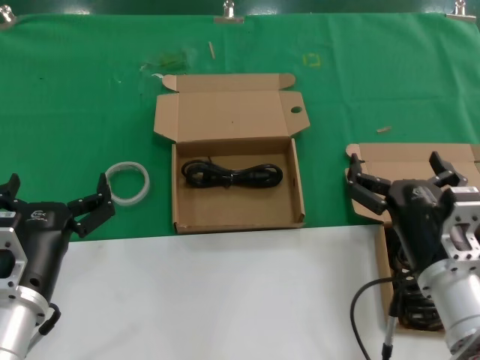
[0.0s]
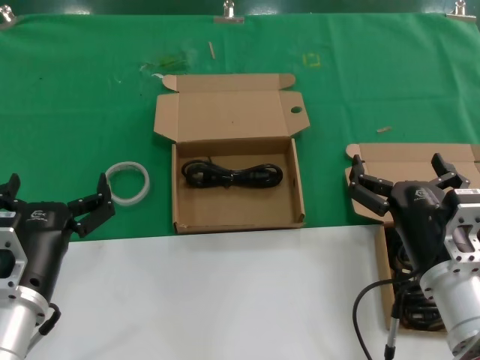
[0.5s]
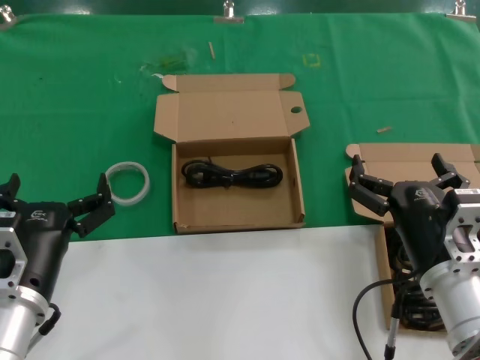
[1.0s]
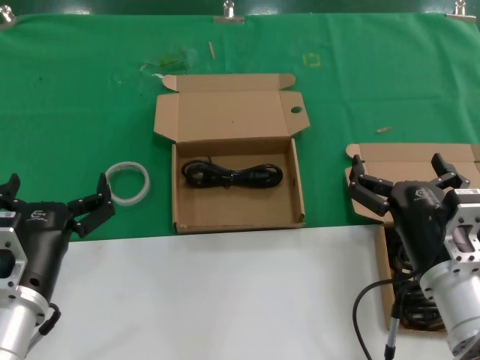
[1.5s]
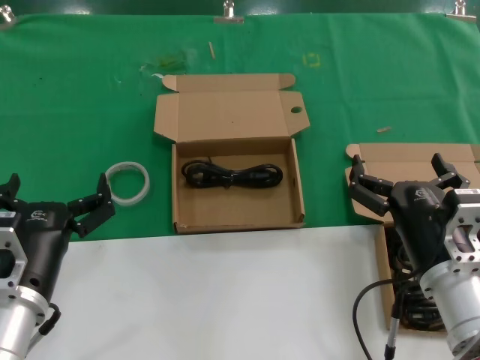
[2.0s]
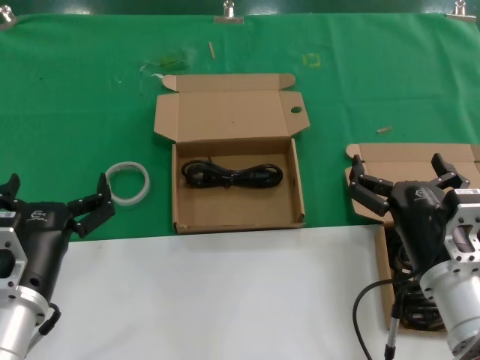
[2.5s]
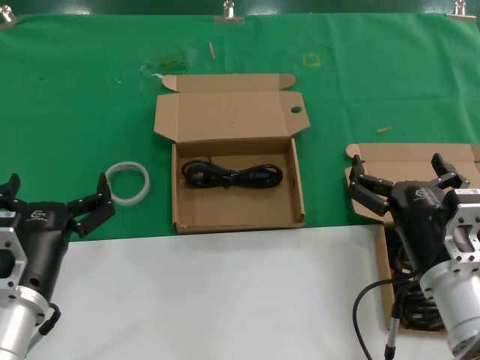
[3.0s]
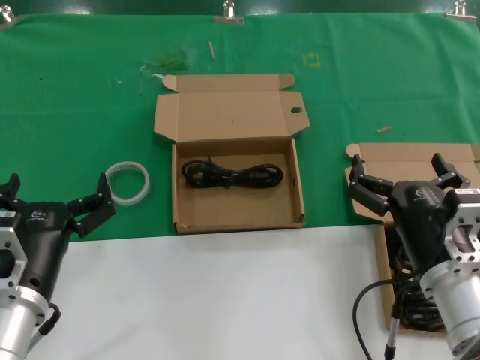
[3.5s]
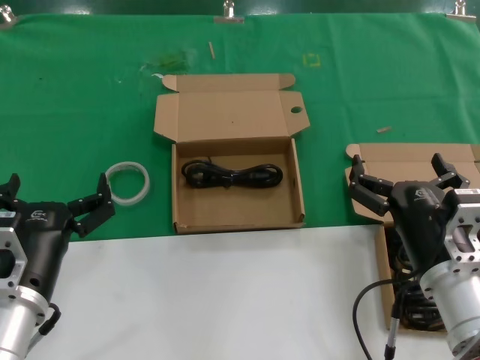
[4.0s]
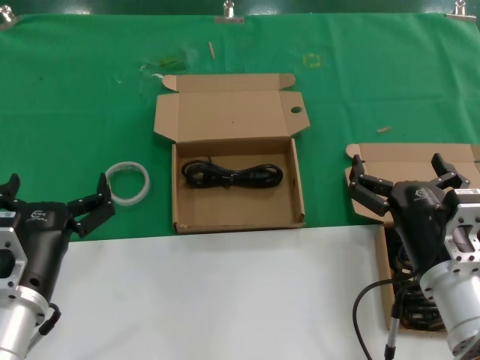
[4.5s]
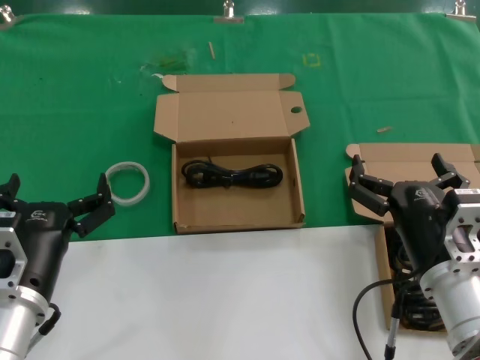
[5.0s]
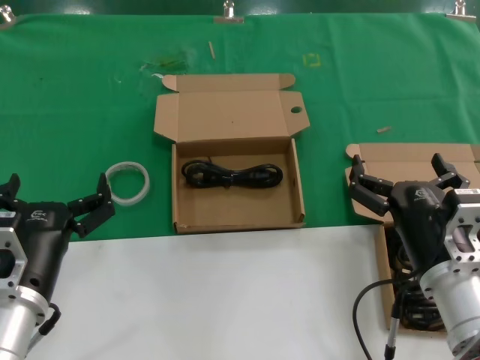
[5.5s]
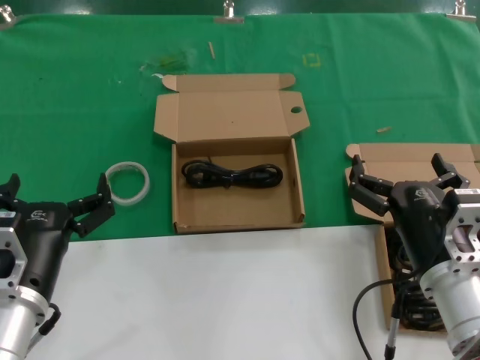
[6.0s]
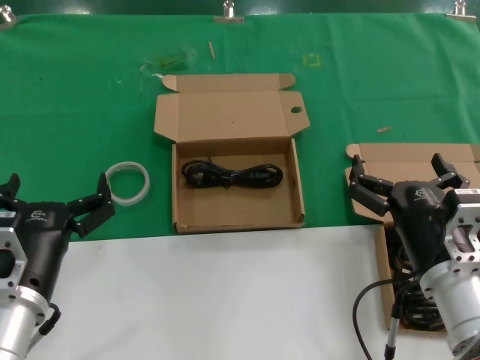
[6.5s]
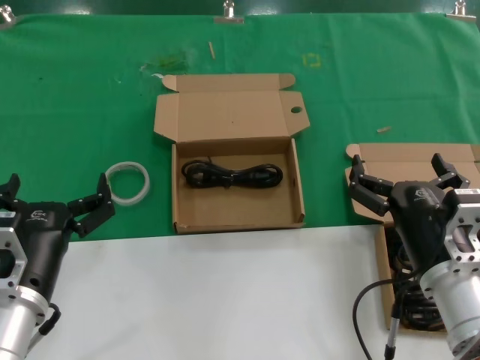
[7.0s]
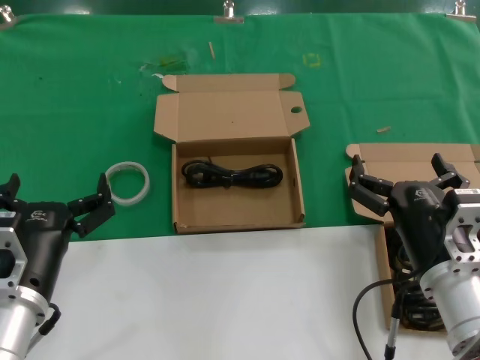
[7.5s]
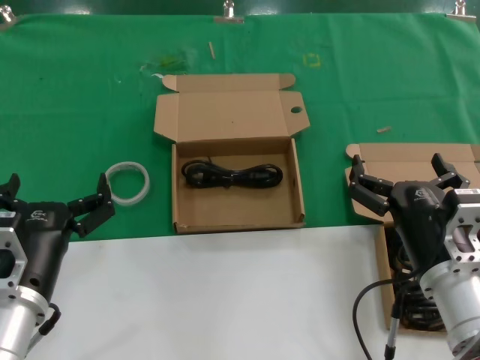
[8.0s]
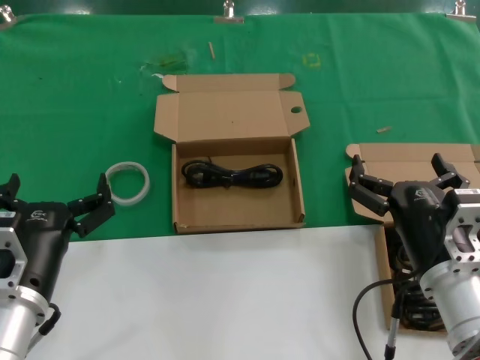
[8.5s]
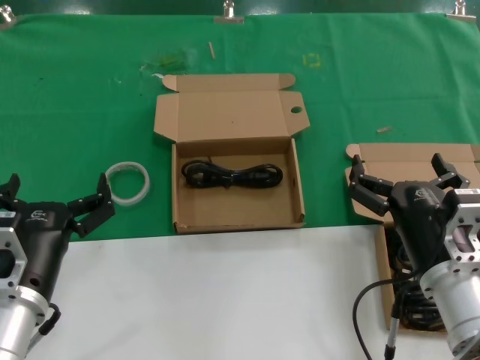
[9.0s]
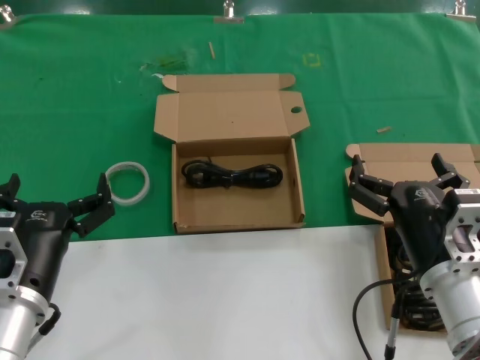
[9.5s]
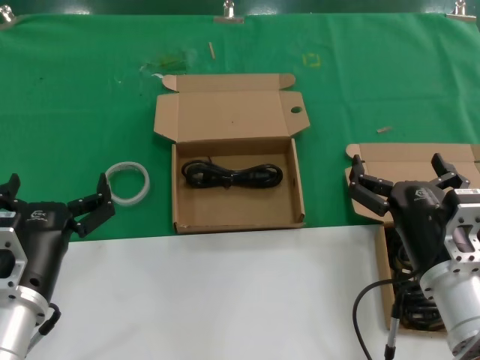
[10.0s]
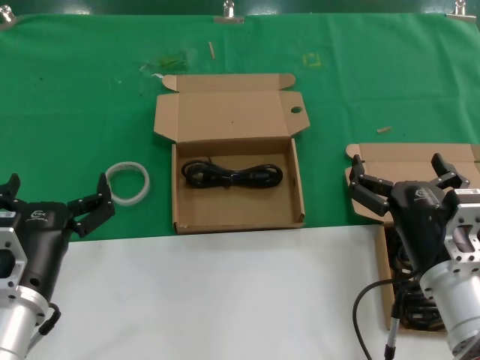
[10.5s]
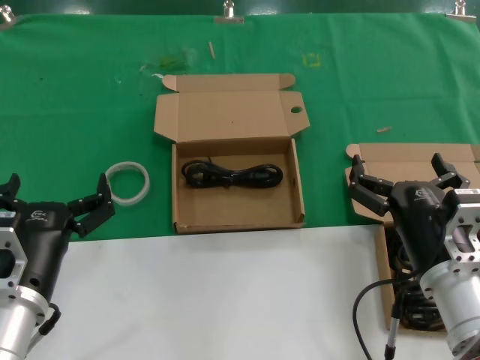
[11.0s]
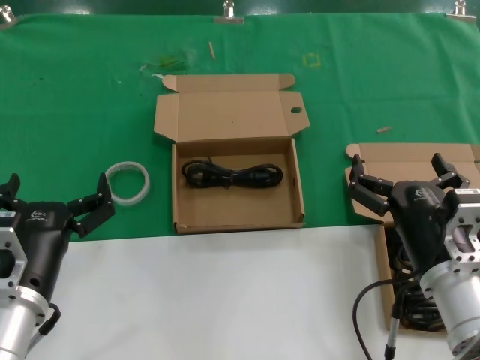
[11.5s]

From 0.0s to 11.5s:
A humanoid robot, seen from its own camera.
Task of the whole recording: take the parts from the box containing them and put them into an empty box.
From 0.0s to 11.5s: The two hands keep their place.

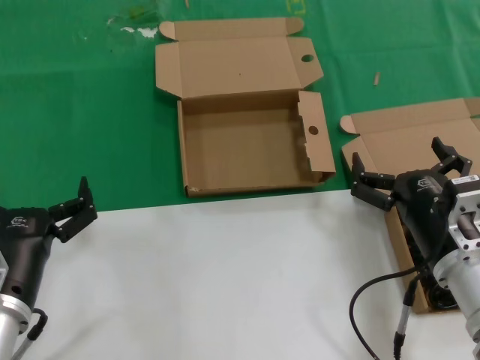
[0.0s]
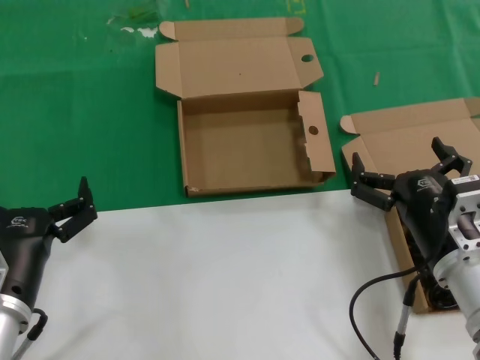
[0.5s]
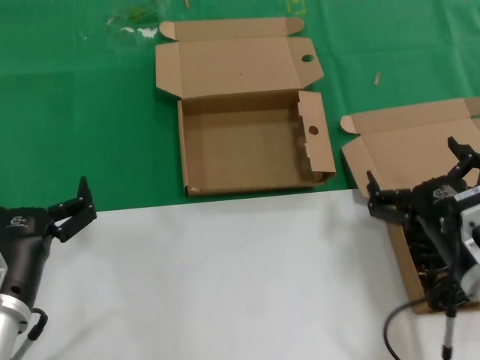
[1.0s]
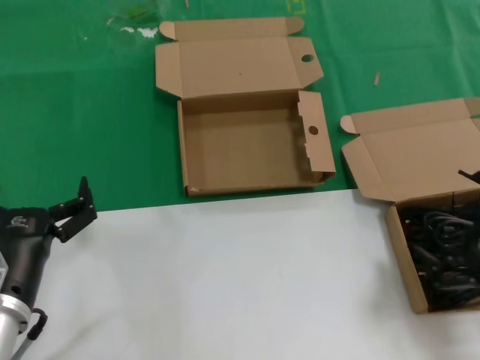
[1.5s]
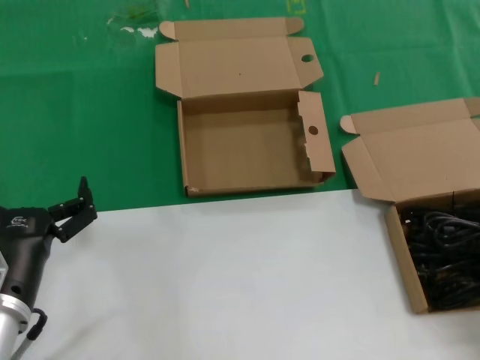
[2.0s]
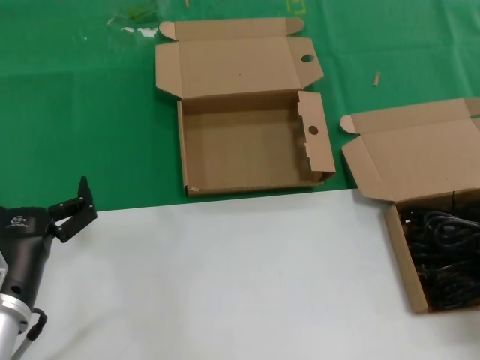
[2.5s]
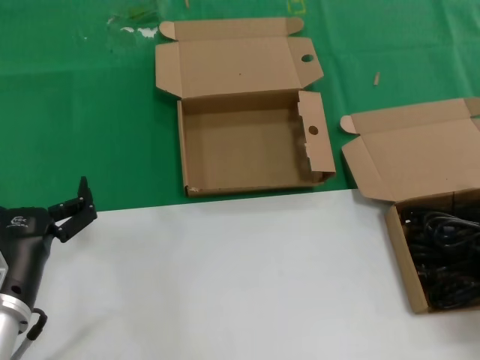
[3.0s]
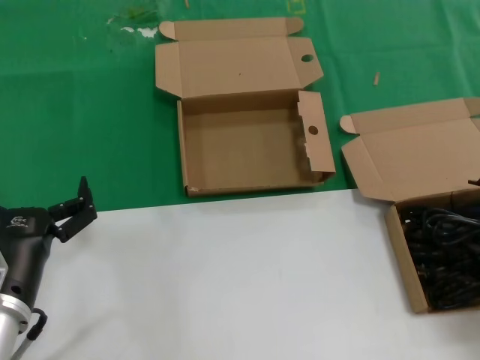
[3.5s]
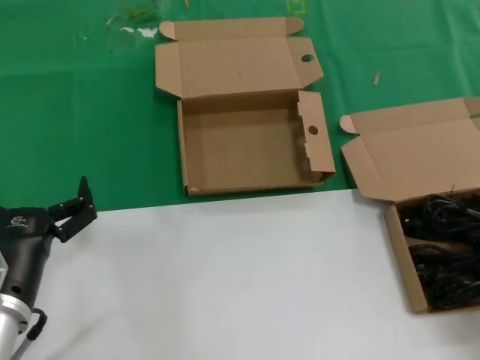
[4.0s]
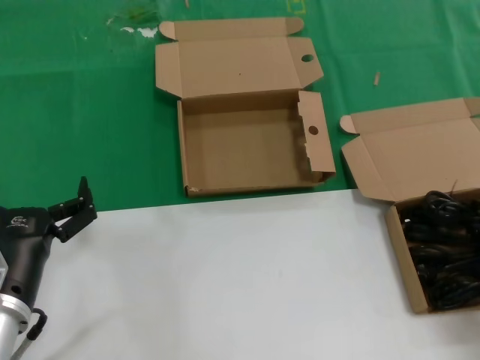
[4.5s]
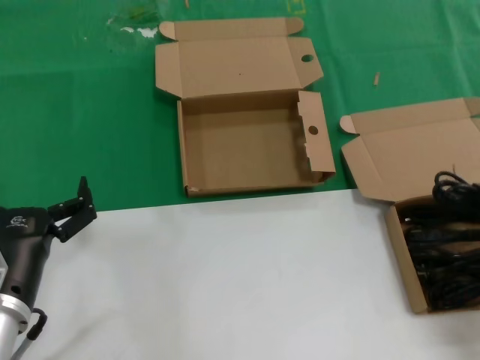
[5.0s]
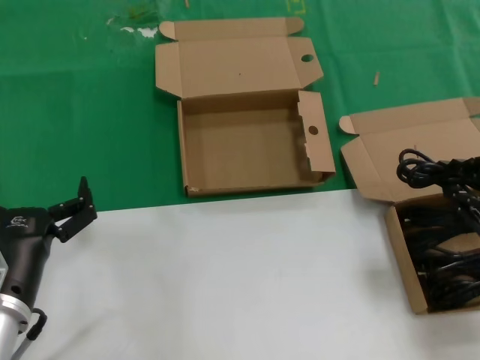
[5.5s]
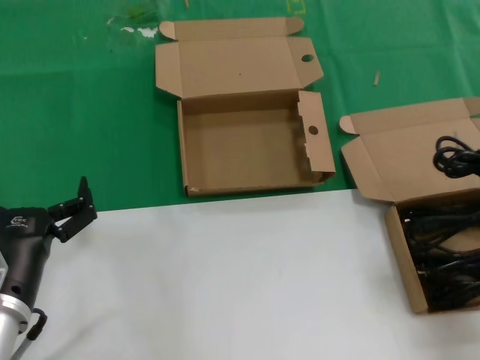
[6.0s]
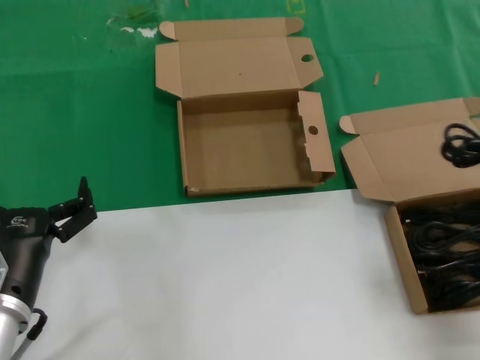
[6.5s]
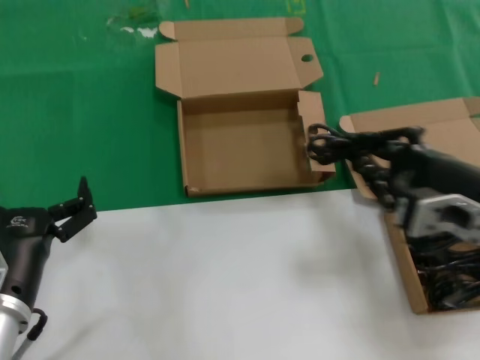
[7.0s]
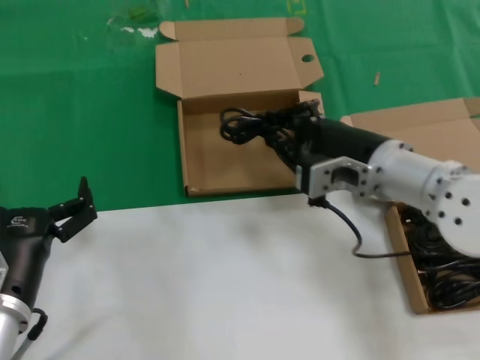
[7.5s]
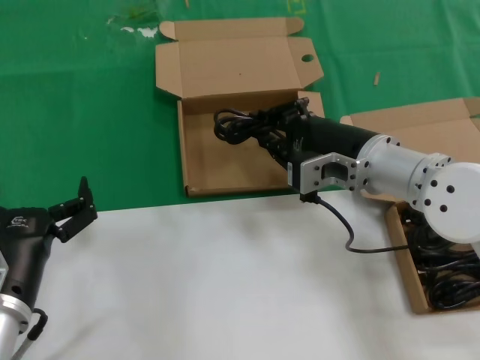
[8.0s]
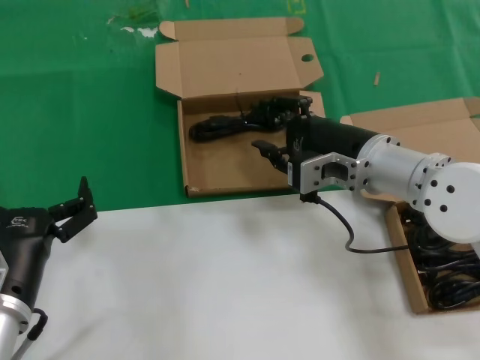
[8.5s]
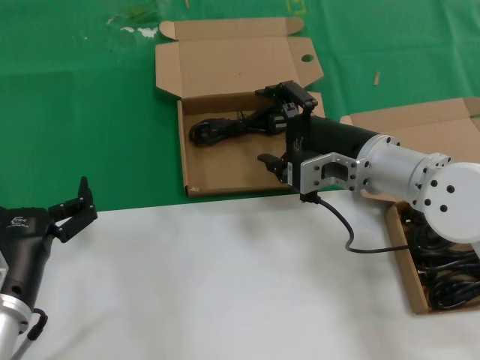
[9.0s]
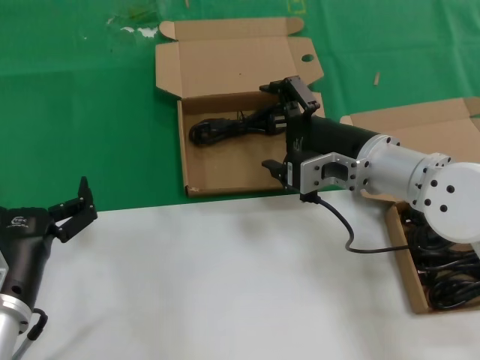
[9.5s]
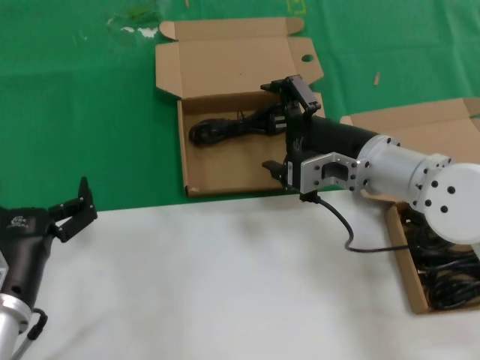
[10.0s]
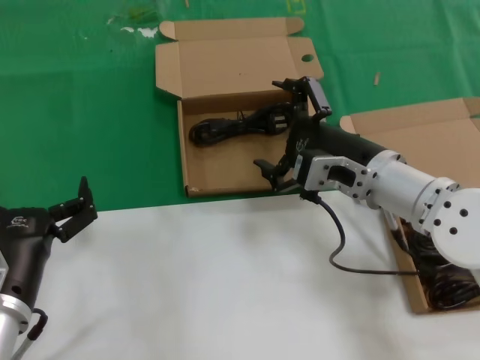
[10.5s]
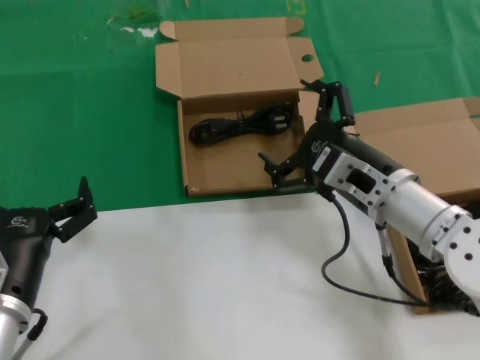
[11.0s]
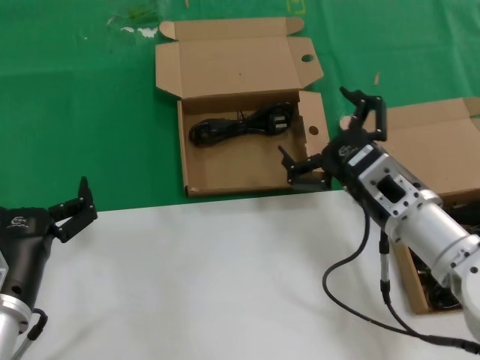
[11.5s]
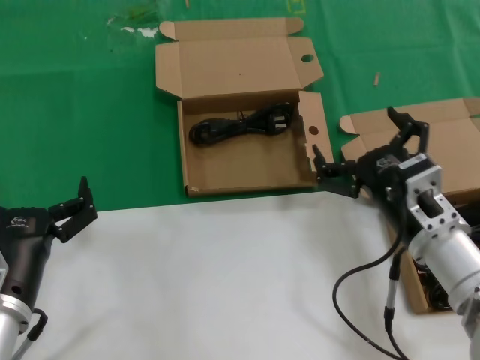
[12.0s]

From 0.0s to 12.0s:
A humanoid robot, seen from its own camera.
Task of the whole recording: take the parts from the box containing them and put them into an empty box.
Step, from 0.0s to 4.5s: Grasp the data cable.
Step, from 5.0s to 9.5s: Place the data cable in the another box.
From 0.0s to 2.0s: The right hand is displaced to the right and upward by some 20 cm.
From 4.0s to 6.0s: The right hand goes approximately 10 cm upward and backward.
From 6.0s to 8.0s: The right hand is displaced to the left and forward by some 25 cm.
From 8.0s to 10.0s: Both hands stay about where they are.
From 10.0s to 12.0s: The right hand travels backward and downward by some 10 cm.

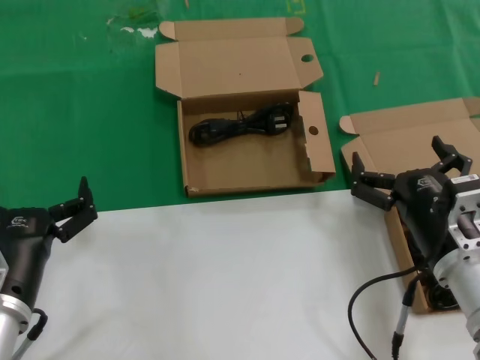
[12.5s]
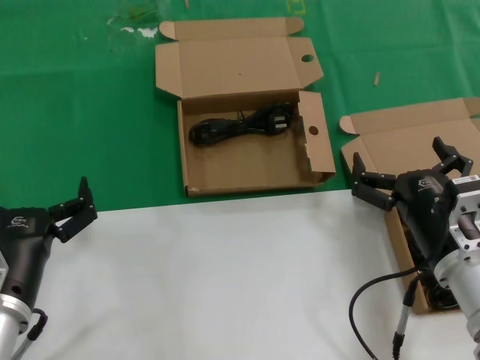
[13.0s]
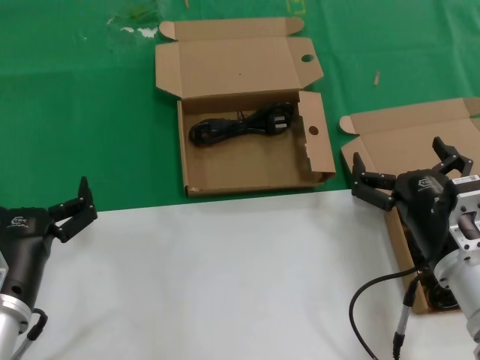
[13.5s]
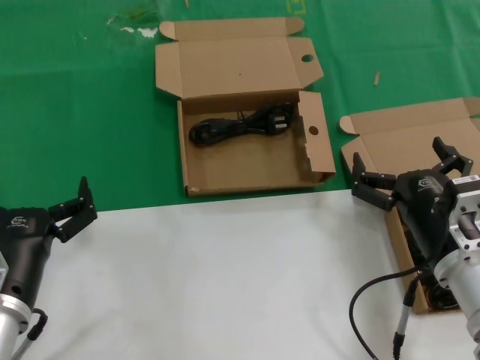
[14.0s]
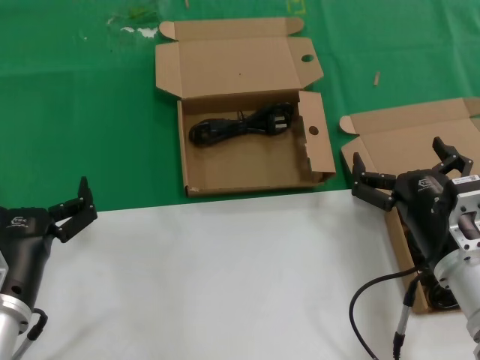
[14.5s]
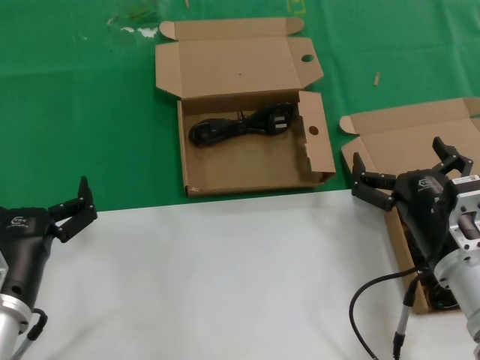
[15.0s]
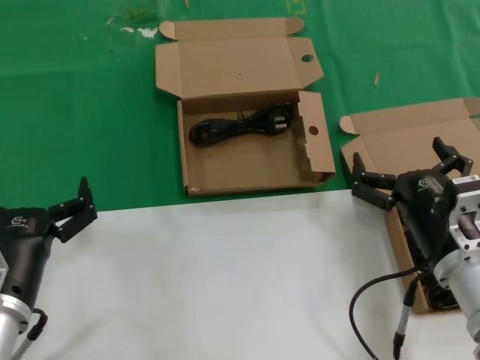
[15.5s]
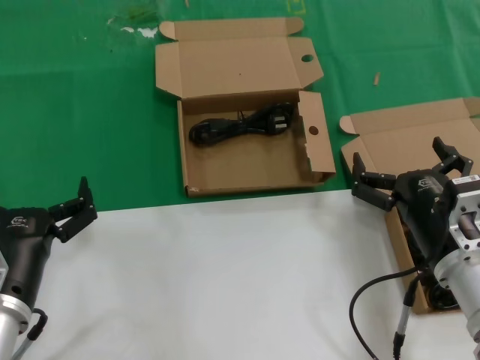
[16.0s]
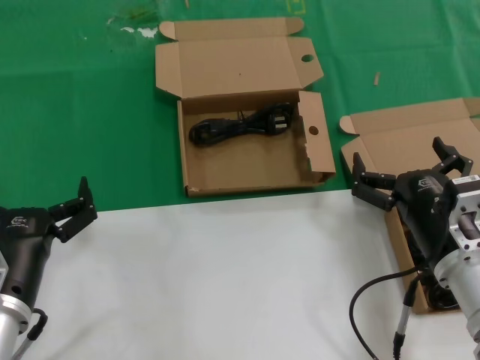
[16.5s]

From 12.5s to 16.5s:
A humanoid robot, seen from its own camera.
Task of the whole recording: take the parts from the box containing them and put them into an empty box.
From 12.5s to 16.5s: Both hands stay put.
